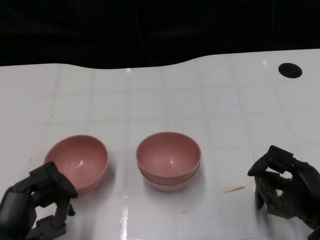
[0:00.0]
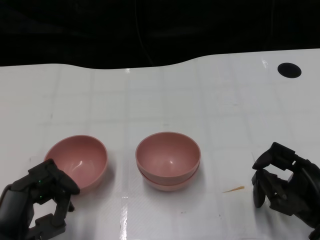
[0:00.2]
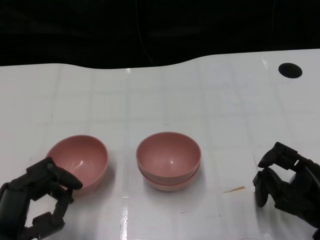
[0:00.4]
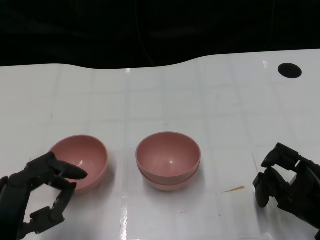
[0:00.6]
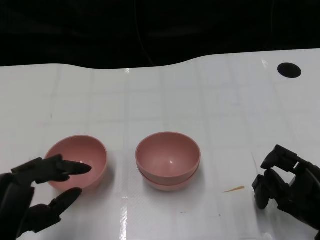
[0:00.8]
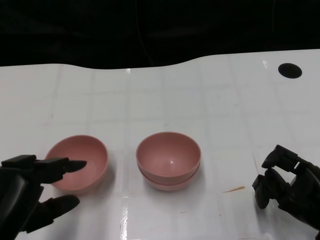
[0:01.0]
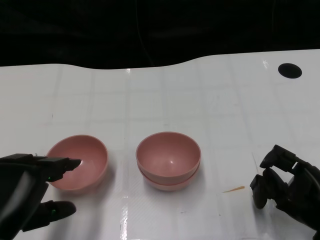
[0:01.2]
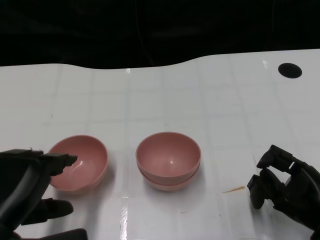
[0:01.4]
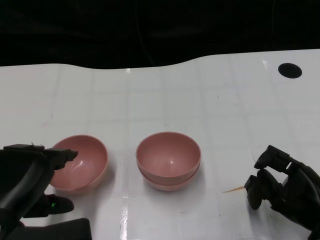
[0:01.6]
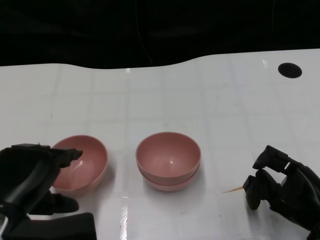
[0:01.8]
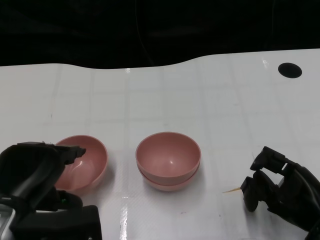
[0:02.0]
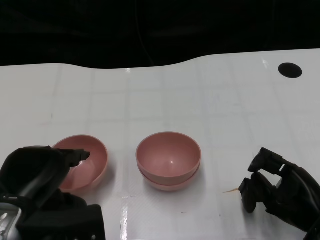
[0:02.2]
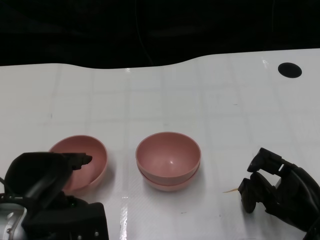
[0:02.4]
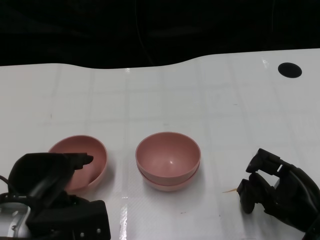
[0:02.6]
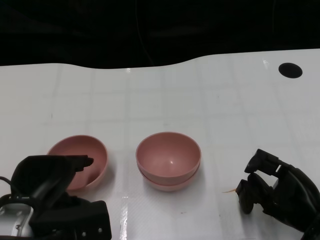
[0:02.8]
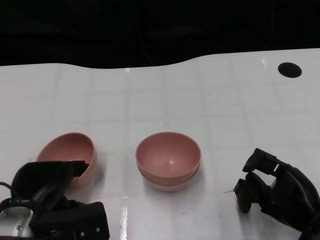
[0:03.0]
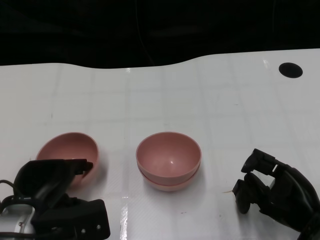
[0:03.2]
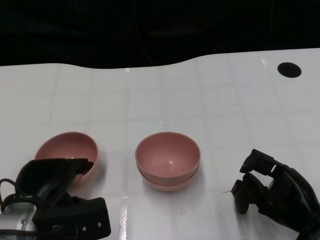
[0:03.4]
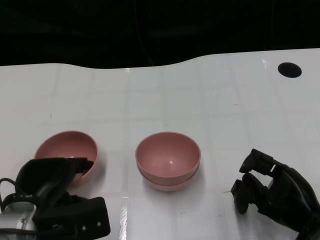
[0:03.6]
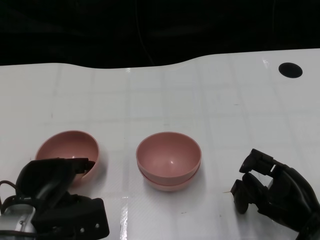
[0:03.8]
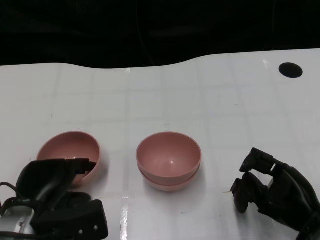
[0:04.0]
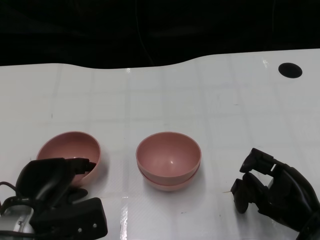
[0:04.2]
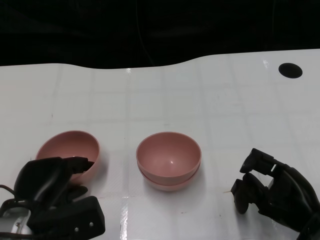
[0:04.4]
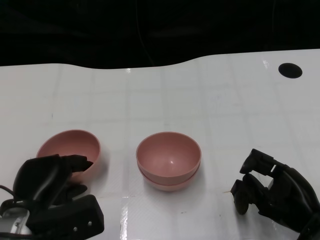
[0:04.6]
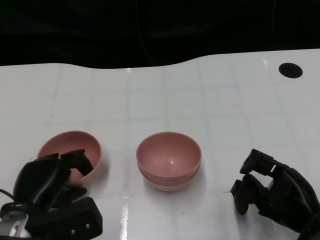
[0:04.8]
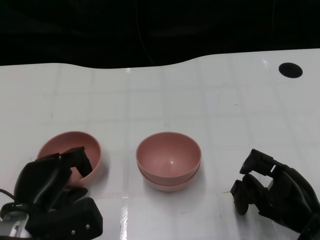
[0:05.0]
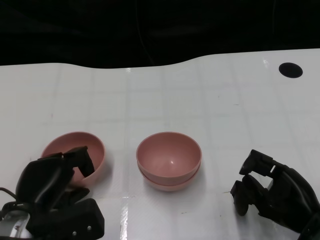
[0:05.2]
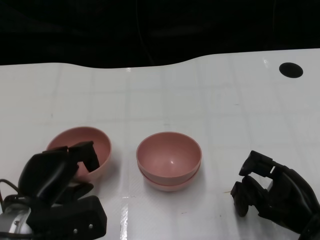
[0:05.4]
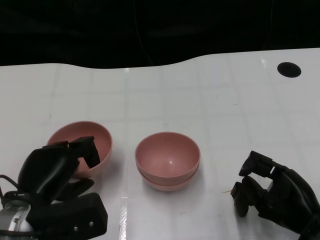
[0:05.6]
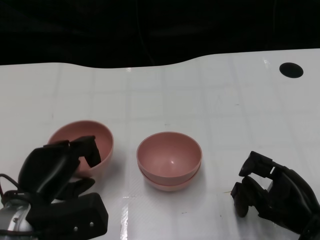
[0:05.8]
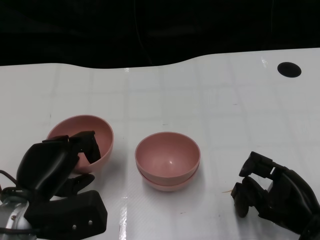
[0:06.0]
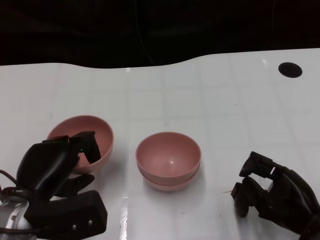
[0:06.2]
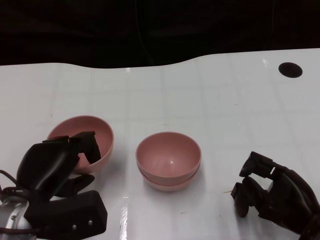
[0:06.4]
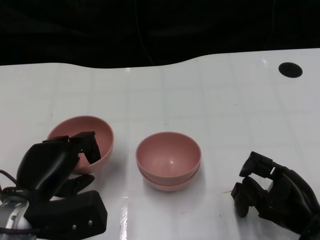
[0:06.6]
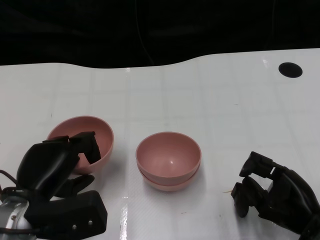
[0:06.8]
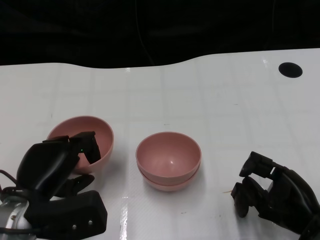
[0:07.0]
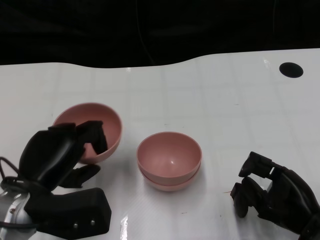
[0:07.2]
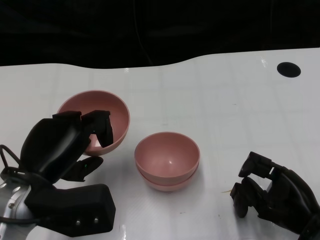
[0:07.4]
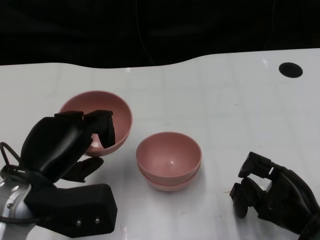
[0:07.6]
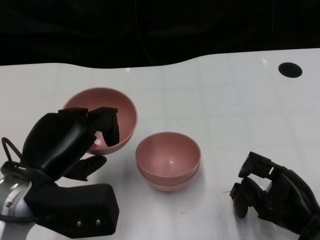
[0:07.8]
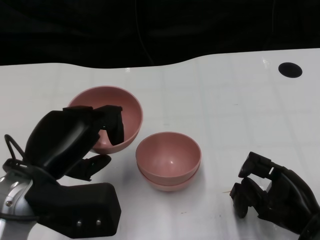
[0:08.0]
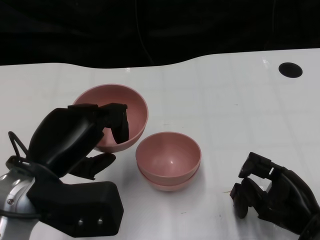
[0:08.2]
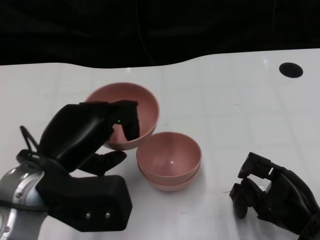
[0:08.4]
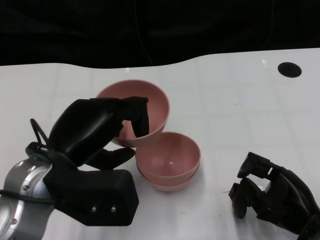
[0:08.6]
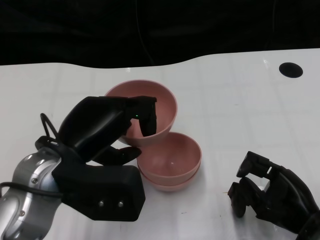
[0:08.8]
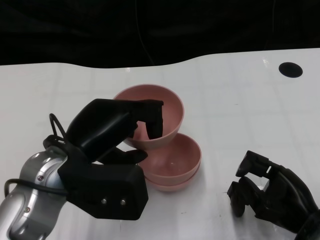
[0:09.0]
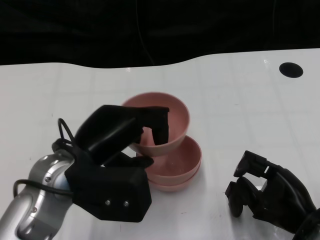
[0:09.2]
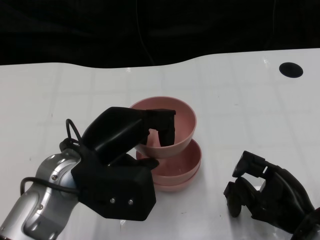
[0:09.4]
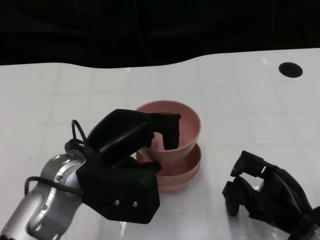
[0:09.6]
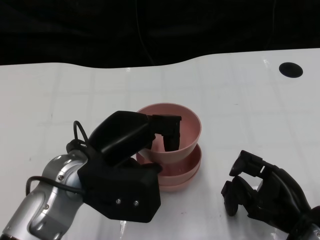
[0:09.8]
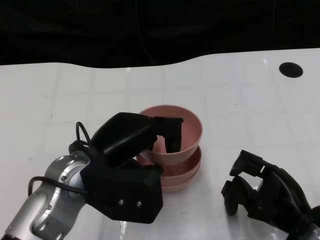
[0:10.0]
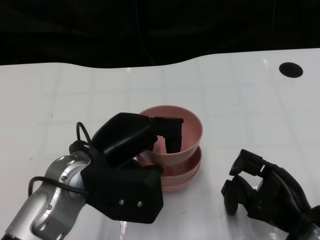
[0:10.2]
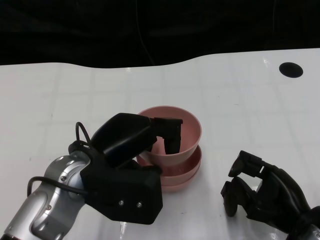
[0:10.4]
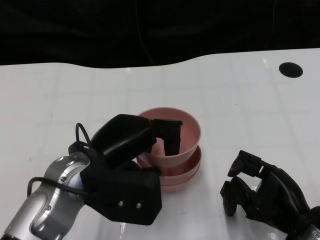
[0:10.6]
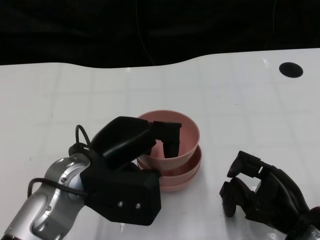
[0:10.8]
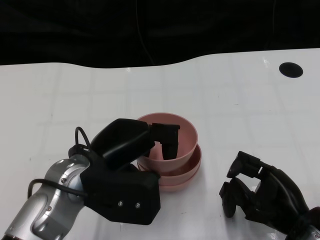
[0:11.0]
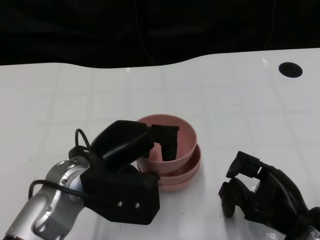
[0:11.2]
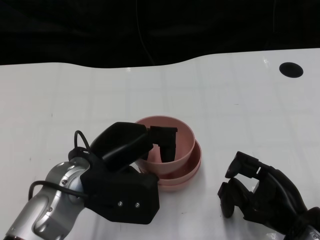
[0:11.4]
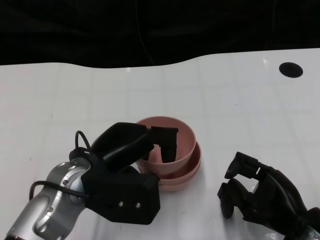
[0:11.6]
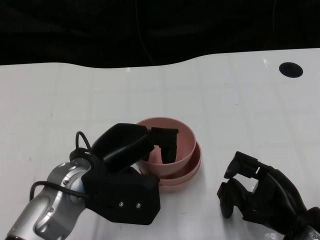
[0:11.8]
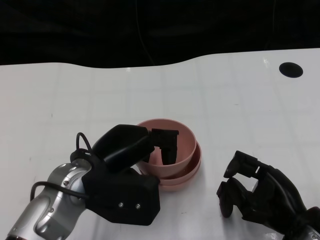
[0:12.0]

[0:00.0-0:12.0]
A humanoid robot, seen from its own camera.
Task of the whole recording: Pick up the bowl on one side of the table and place it on top of the middle bowl, then pick up the bowl on the other side of the table and place it on top of the middle bowls.
Step, 0:00.0 to 0:05.2: Grasp the bowl on the left with the left gripper.
0:00.0 to 0:01.6: The left hand is displaced upward by some 5 cm.
0:01.6 to 0:03.0: The left hand travels downward by approximately 5 cm.
0:03.0 to 0:06.0: There are only small adjustments of the hands.
0:06.0 to 0:07.6: The left hand goes approximately 5 cm upward.
0:07.6 to 0:09.0: The left hand changes place by approximately 5 cm.
0:10.4 to 0:12.0: The hands stay close to where they were, moving slightly.

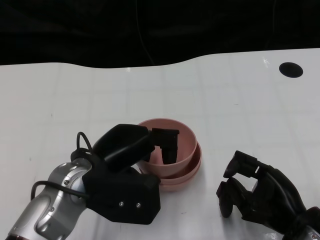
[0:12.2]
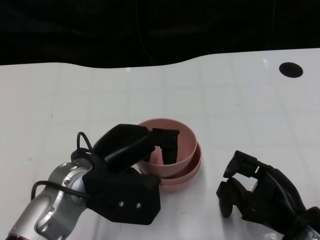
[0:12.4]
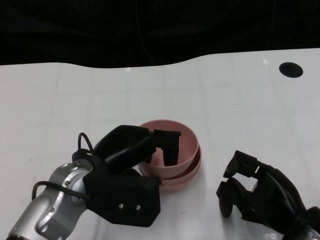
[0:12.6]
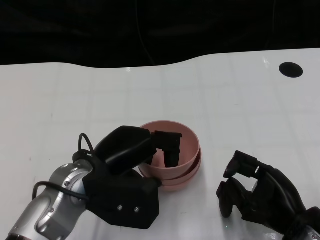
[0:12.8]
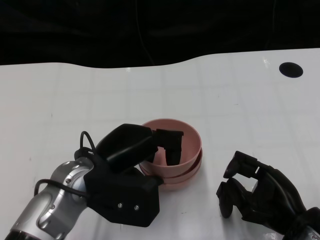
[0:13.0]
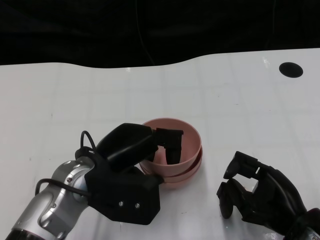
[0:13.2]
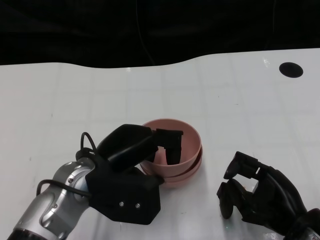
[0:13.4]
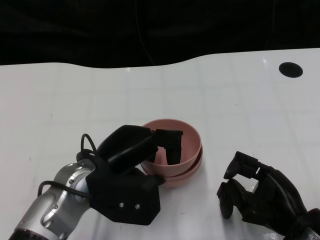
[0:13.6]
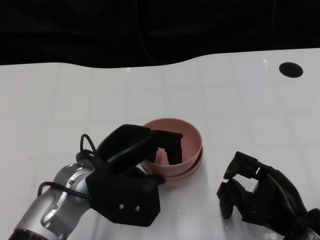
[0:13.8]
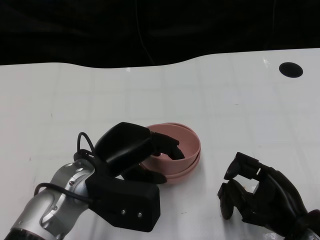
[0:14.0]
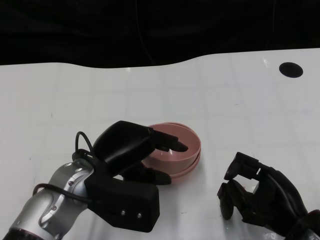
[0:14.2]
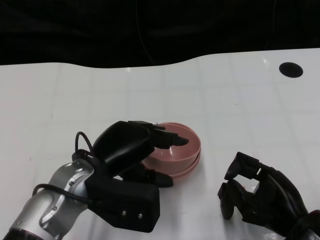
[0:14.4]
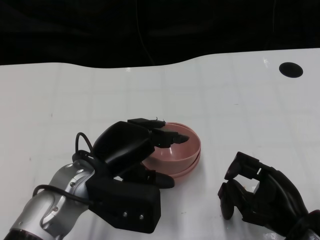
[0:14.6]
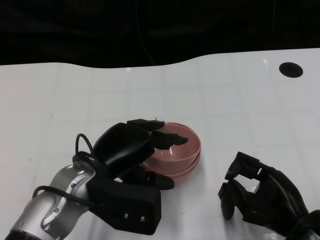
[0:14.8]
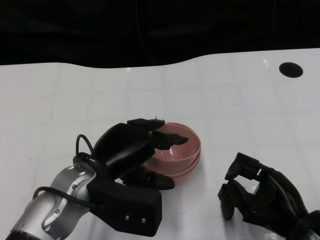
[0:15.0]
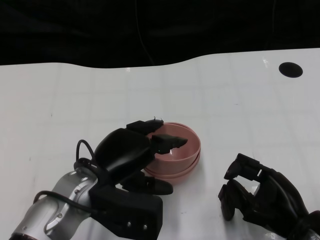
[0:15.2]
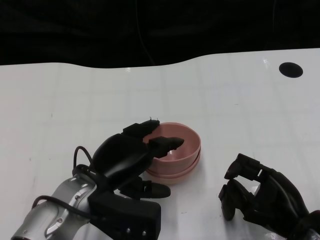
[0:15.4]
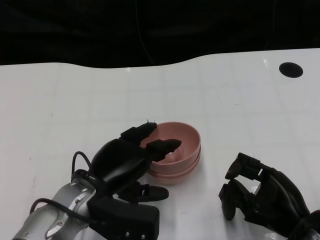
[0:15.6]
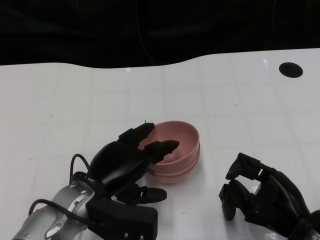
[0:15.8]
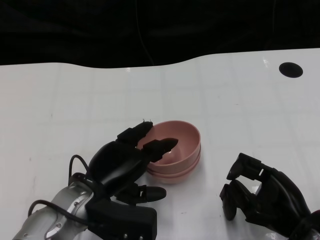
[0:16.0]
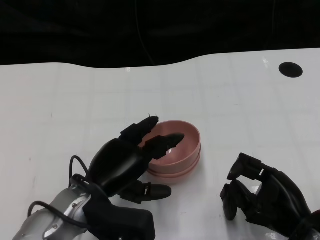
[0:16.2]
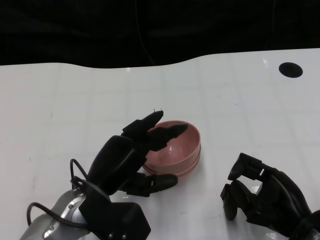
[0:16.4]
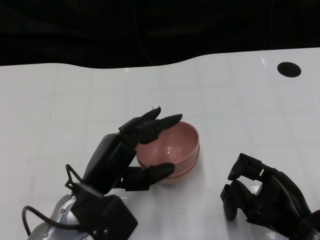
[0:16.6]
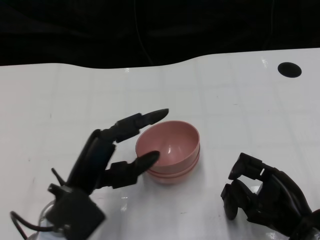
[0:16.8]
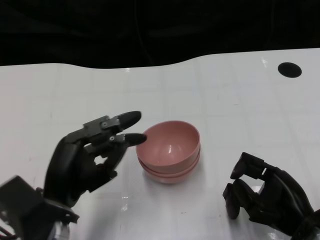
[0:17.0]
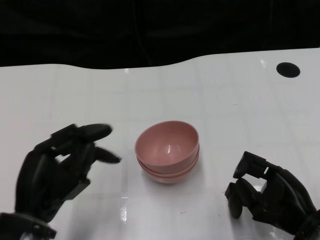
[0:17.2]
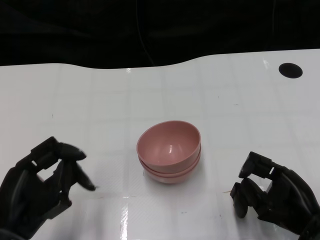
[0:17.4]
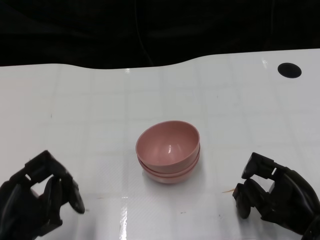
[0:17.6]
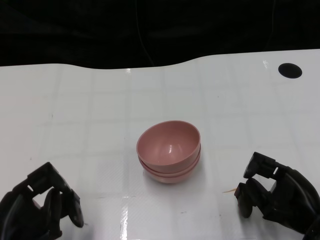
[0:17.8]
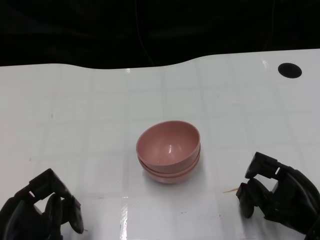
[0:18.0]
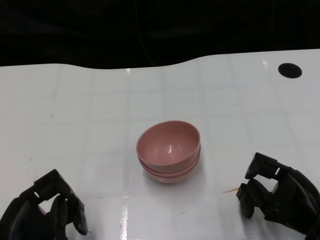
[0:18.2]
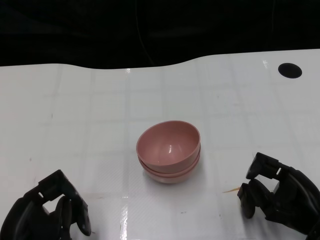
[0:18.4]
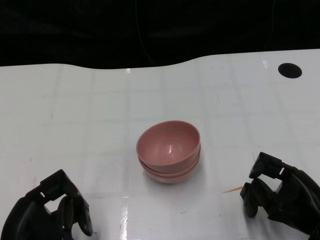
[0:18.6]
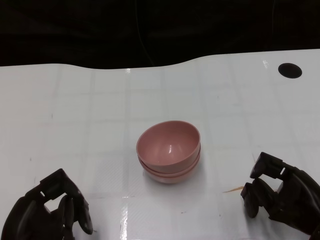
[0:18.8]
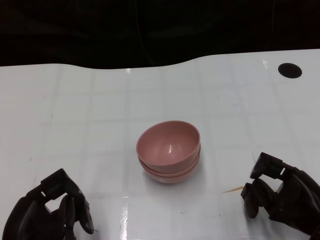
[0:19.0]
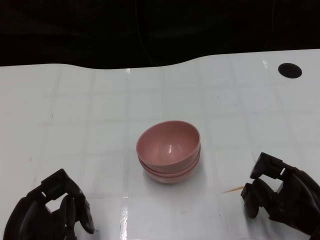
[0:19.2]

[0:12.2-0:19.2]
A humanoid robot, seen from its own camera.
Task of the whole recording: Pick up the bowl on one side of the table and place it on top of the middle bowl, then pick up the bowl on the other side of the table and place it on top of the middle bowls.
Step, 0:12.2 to 0:17.0: Place the bowl on the left onto the bowl in the middle with left gripper.
0:12.2 to 0:13.6: Both hands stay about where they are.
0:13.6 to 0:16.4: There are only small adjustments of the hands.
0:16.4 to 0:17.8: The left hand goes roughly 15 cm to the left and backward.
0:17.8 to 0:19.2: There are only small adjustments of the hands.
